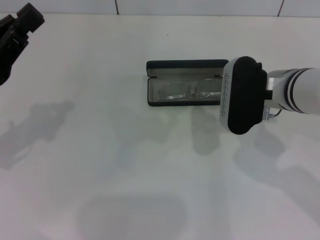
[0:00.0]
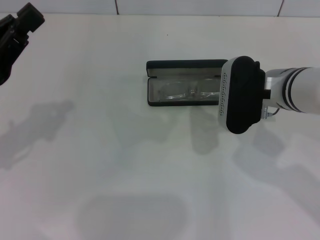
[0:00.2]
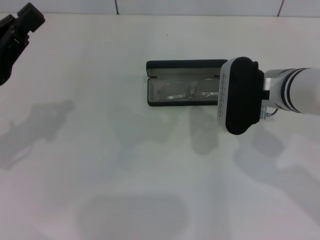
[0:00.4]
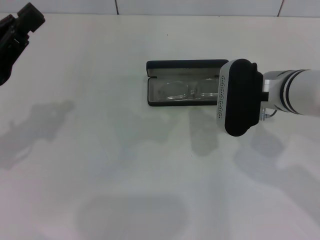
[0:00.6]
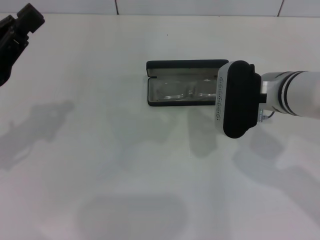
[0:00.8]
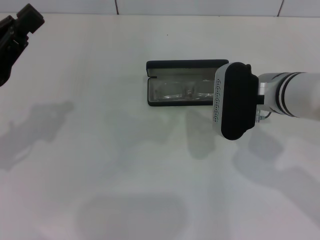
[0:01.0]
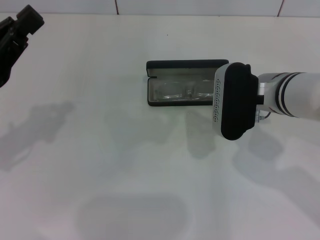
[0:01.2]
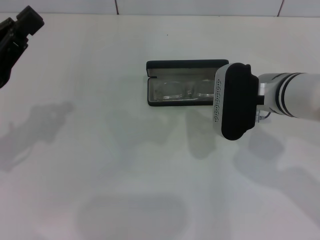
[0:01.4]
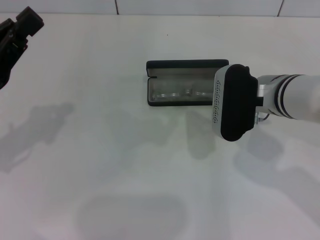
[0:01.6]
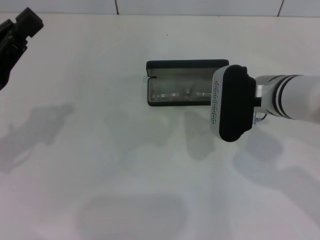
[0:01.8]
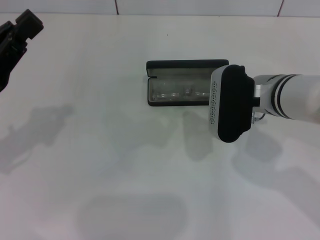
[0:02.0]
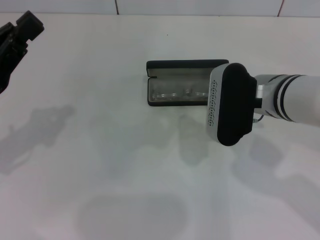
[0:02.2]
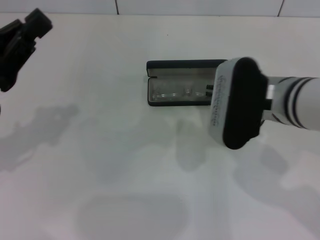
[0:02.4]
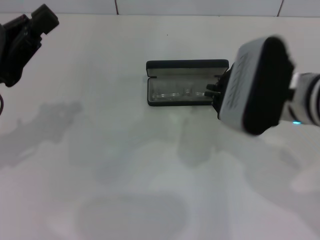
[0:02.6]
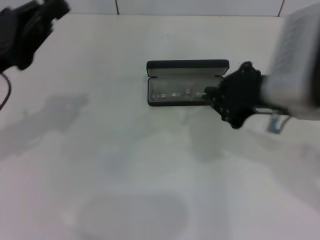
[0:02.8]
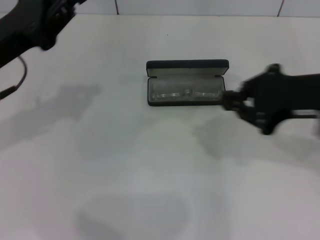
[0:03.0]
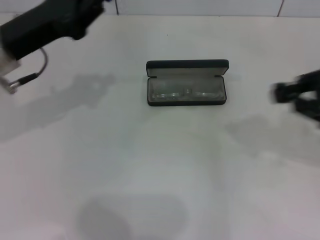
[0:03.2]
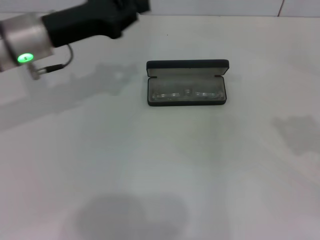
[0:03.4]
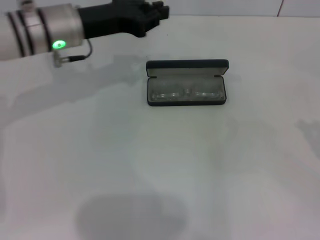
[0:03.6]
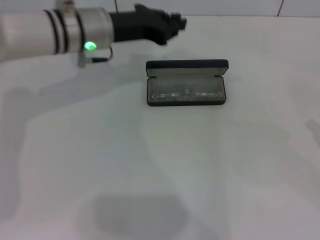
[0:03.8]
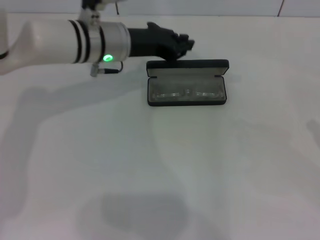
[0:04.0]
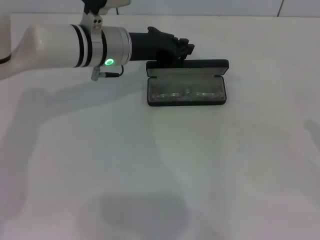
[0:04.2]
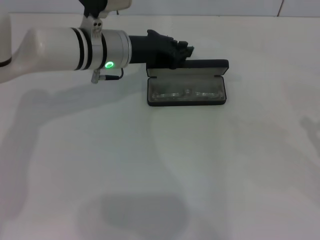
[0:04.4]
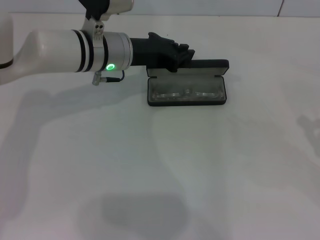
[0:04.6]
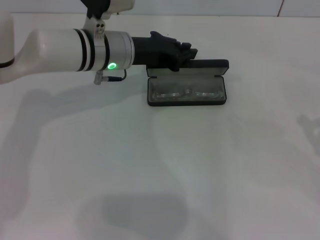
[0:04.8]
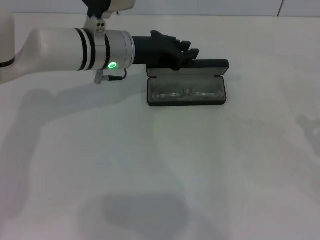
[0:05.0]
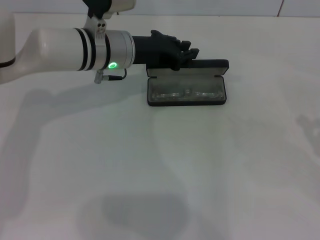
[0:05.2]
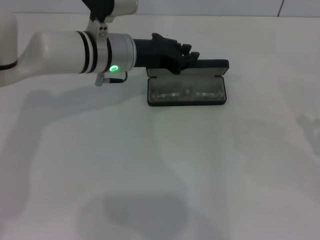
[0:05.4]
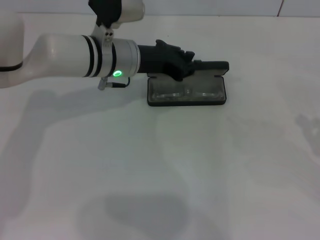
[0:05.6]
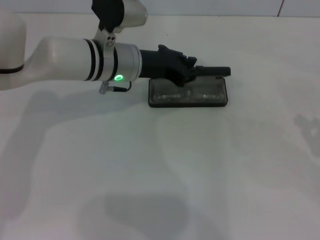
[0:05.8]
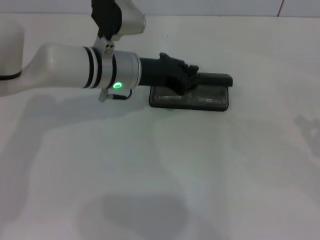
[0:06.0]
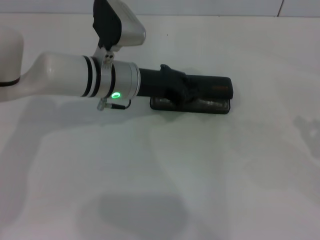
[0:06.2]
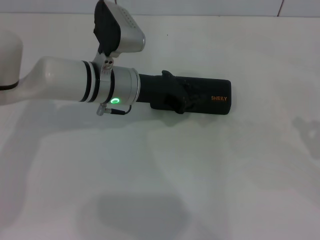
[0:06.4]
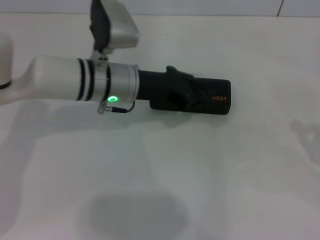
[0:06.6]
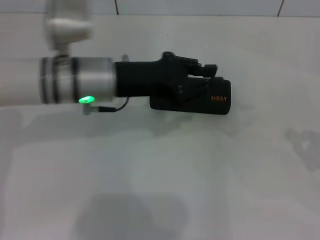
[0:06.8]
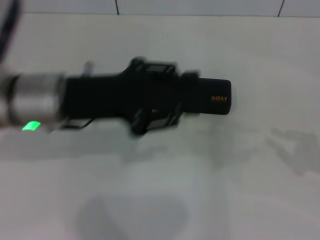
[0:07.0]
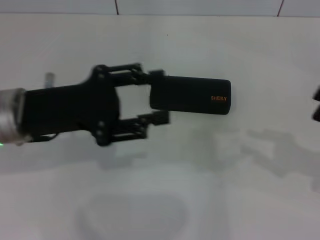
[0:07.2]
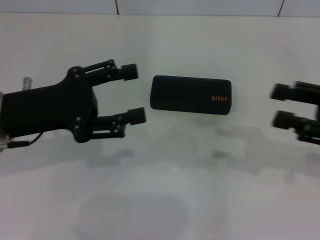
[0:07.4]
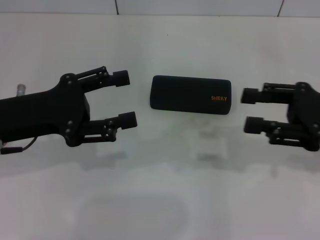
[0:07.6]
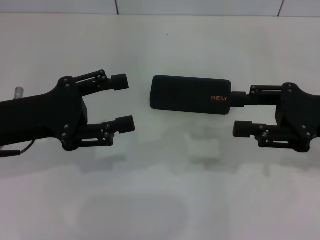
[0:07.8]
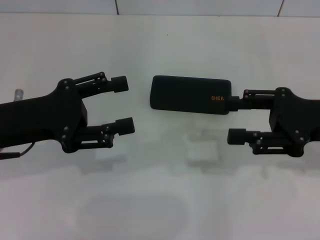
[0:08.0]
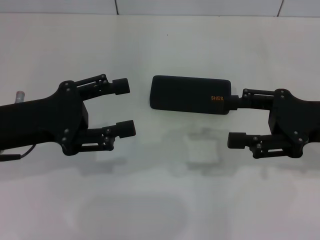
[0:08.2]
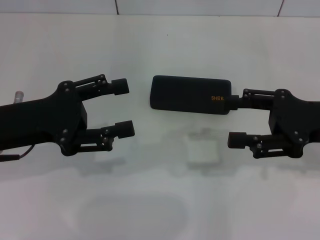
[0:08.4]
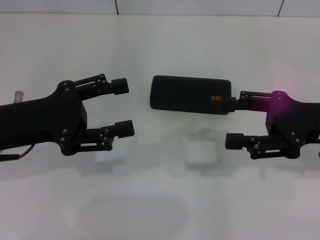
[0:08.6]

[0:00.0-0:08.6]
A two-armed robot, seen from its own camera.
Step, 0:00.0 to 0:06.6: Close the glasses case with your left hand.
0:00.0 to 0:01.4: Neither gripper changes place.
0:01.4 to 0:02.8: The right gripper shifts roughly 10 cm upward and backward.
0:02.8 to 0:04.4: The right gripper moves to the right, some 25 cm. Meanwhile the left gripper is displaced to the right and forward by approximately 20 cm.
0:04.4 to 0:05.8: There are only small adjustments of the grippers.
0:05.8 to 0:07.2: The left gripper moves backward and to the left, approximately 15 cm.
0:07.2 to 0:08.6: The right gripper moves to the left and forward, roughly 10 cm, and opens its fingers; the left gripper opens up.

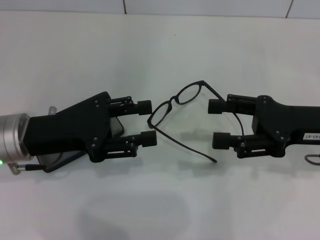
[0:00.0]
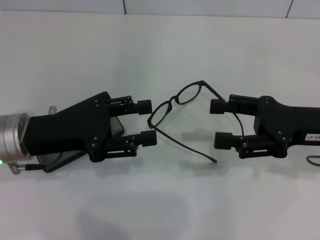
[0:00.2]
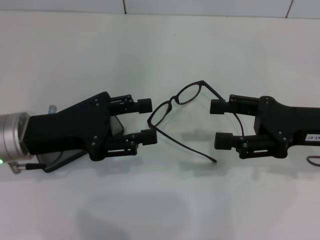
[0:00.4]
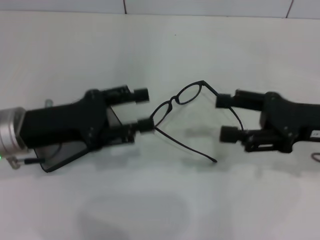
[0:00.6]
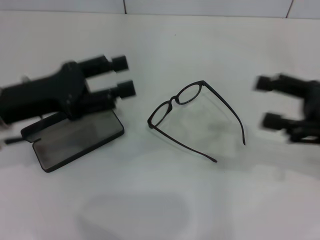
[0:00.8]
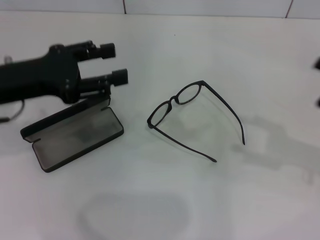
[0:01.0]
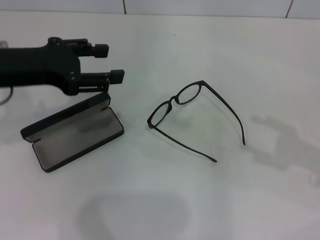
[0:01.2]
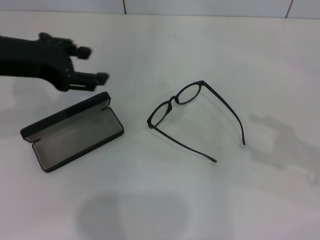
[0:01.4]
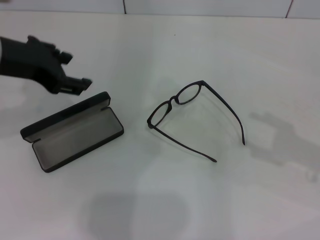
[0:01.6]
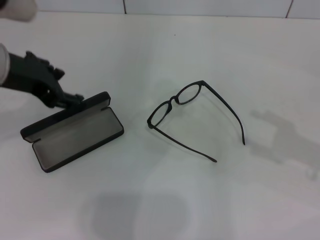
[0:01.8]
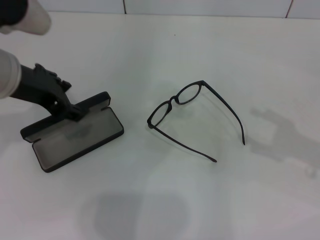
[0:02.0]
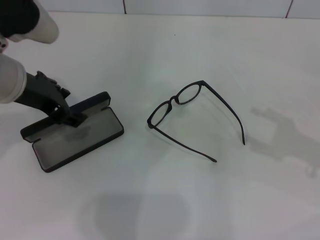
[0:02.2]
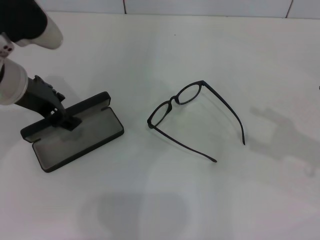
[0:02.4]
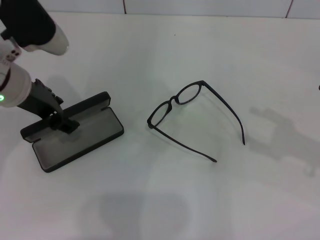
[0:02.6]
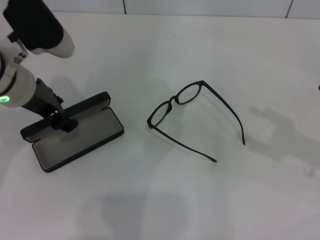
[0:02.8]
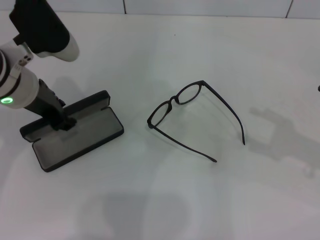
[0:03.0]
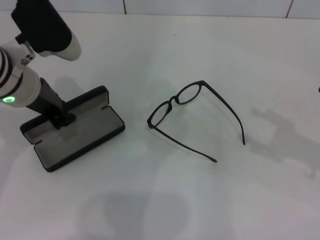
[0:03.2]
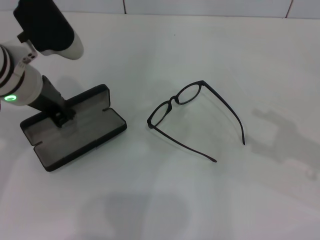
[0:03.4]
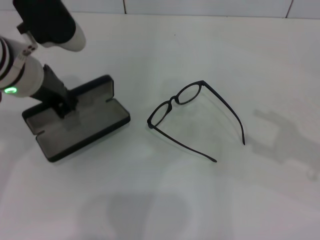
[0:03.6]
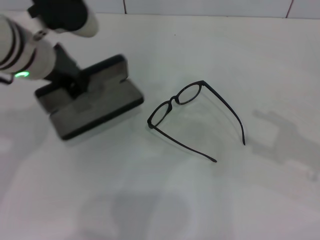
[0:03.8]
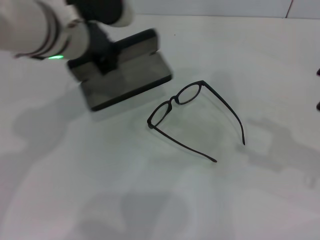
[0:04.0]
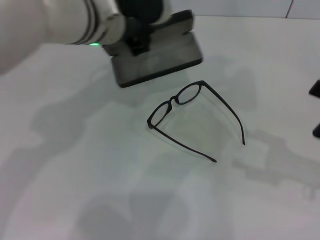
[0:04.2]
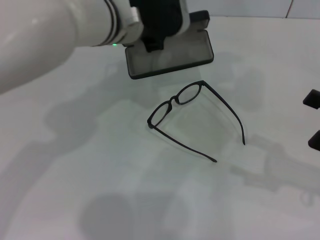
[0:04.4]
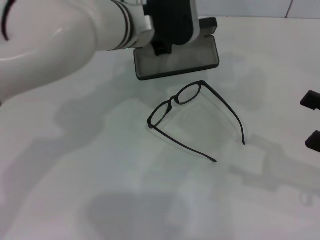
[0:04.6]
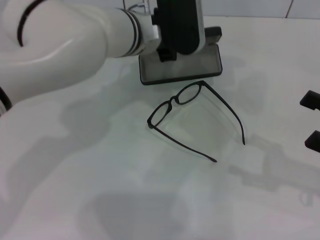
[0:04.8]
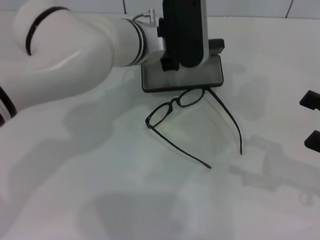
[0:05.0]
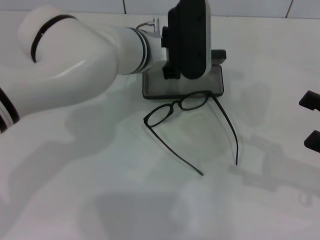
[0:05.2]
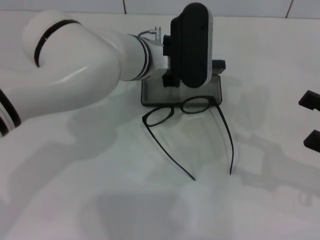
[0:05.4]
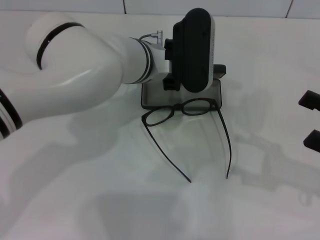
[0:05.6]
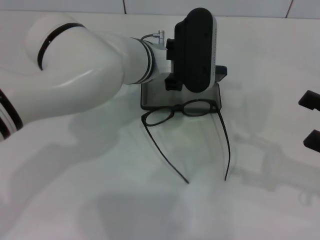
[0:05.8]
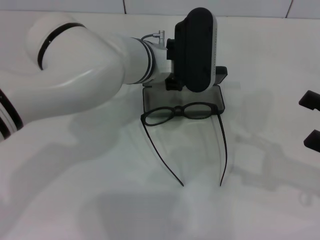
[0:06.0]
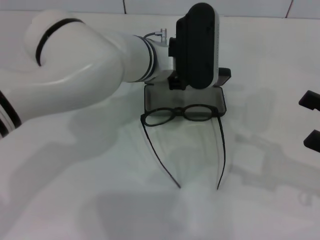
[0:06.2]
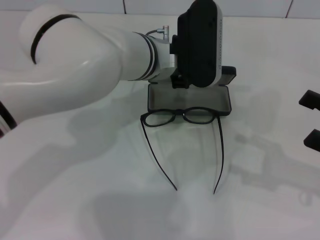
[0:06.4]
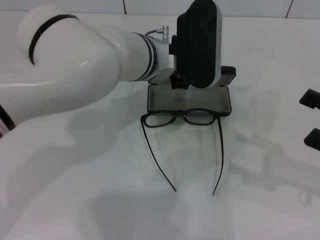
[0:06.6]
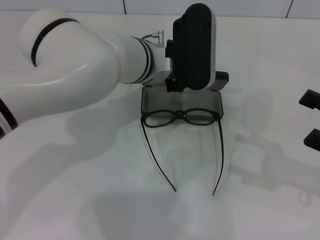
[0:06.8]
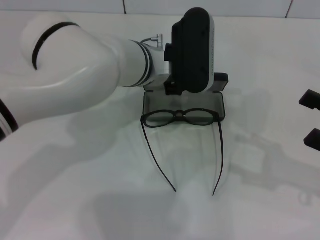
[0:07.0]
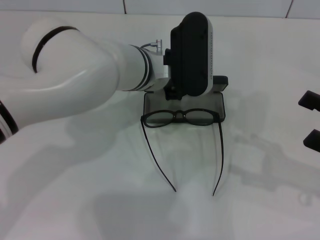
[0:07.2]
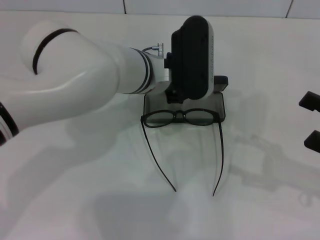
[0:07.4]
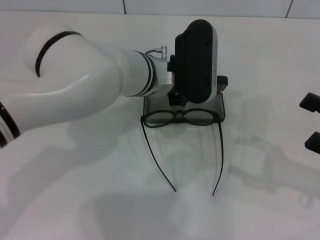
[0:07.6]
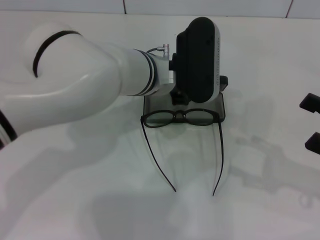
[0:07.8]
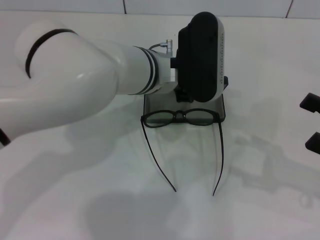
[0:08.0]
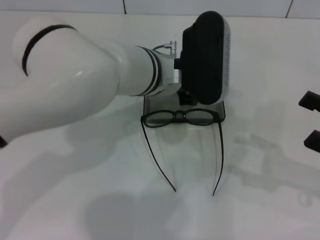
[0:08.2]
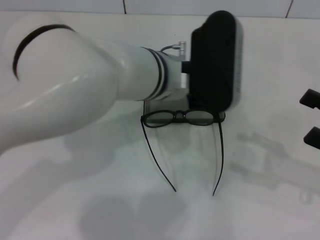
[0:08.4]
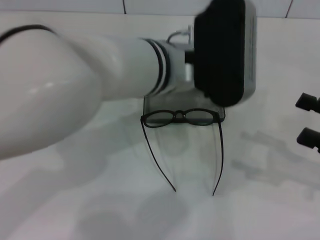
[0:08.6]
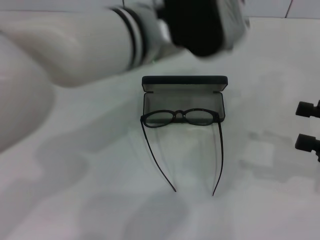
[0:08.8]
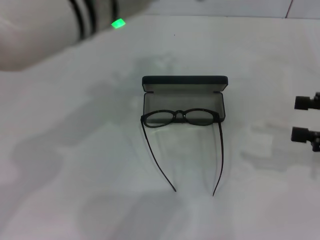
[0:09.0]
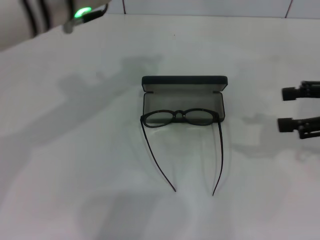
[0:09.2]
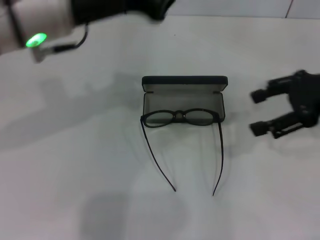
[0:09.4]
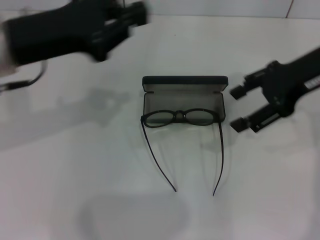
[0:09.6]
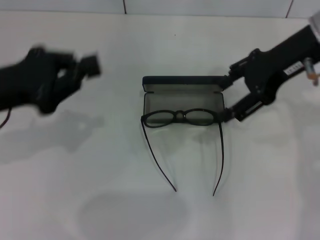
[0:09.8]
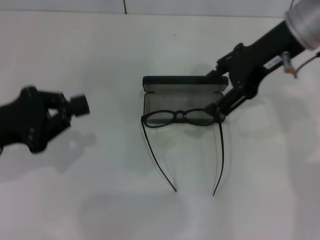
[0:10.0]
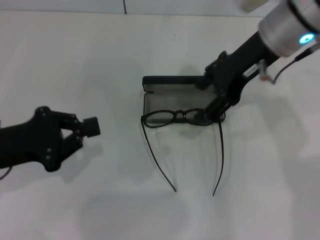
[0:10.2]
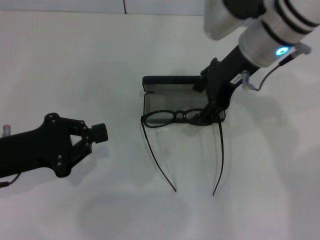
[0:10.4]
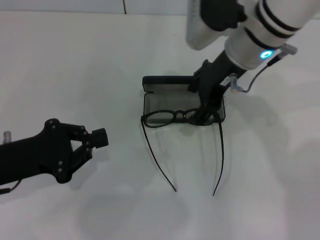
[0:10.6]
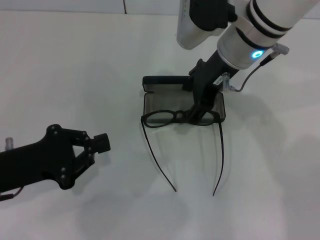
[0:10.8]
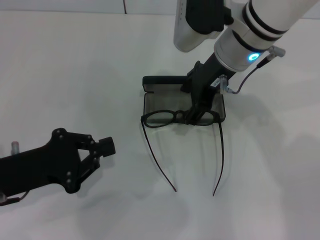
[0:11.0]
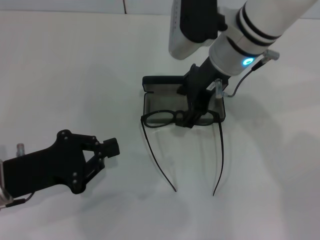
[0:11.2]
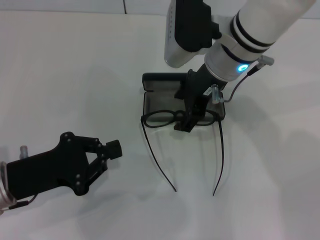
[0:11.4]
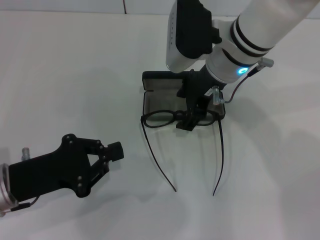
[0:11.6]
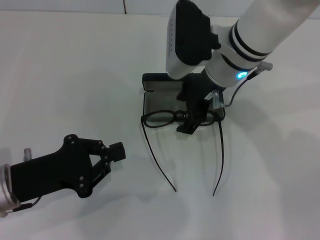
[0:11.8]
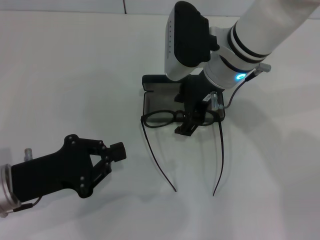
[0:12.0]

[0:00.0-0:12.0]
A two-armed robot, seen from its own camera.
Step, 0:00.0 to 0:03.2: Grab the glasses case with your left hand.
Step, 0:03.4 to 0:07.6: Place the glasses case in the center of the table with your left hand.
0:00.0 to 0:01.6: The left gripper moves upward, approximately 15 cm. The right gripper moves to the right and backward, roughly 10 cm.
0:01.6 to 0:03.0: The left gripper is displaced downward by about 5 cm.
0:03.0 to 0:04.4: The left gripper is displaced to the right and forward by some 15 cm, and closes its fingers.
0:04.4 to 0:06.0: The left gripper is displaced downward by approximately 5 cm.
0:06.0 to 0:07.6: The grippers move only a little.
0:07.6 to 0:09.0: The left gripper heads upward, covering about 15 cm. The right gripper shifts by about 5 cm.
0:09.0 to 0:10.4: The right gripper travels to the left and forward by some 25 cm; the left gripper shifts approximately 25 cm to the left and downward.
0:10.4 to 0:12.0: The right gripper changes place by roughly 5 cm.

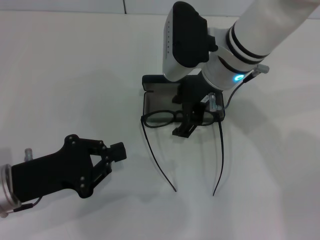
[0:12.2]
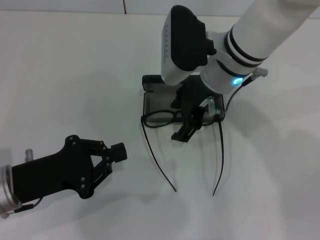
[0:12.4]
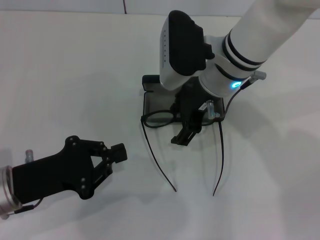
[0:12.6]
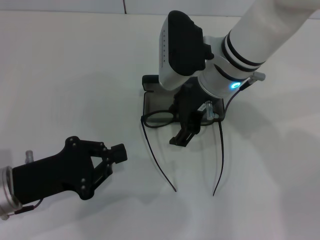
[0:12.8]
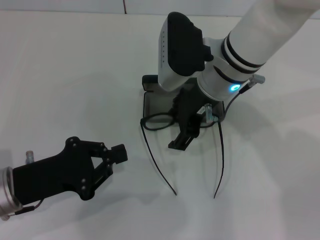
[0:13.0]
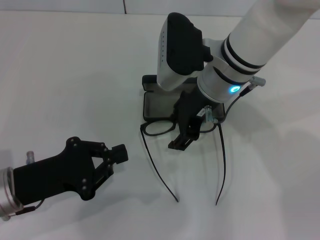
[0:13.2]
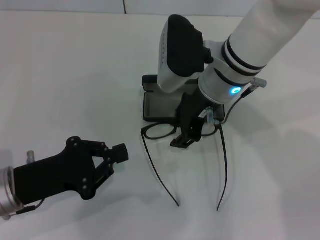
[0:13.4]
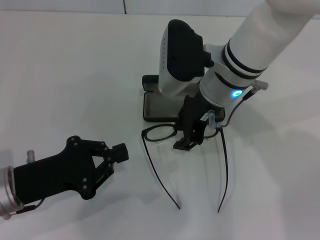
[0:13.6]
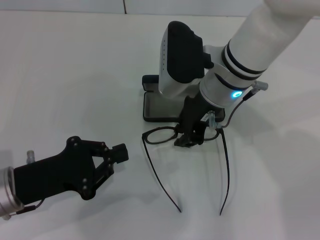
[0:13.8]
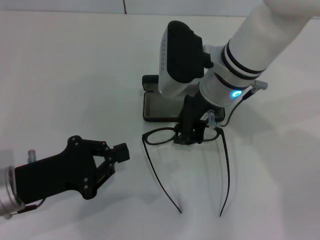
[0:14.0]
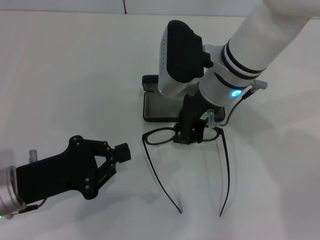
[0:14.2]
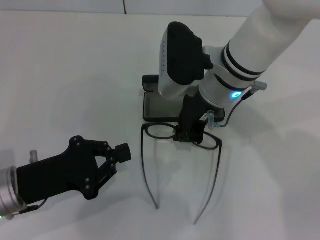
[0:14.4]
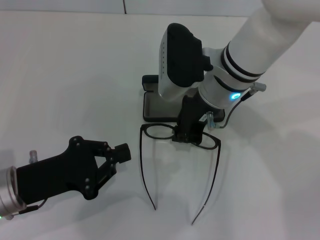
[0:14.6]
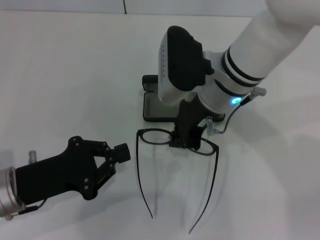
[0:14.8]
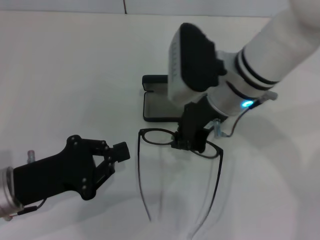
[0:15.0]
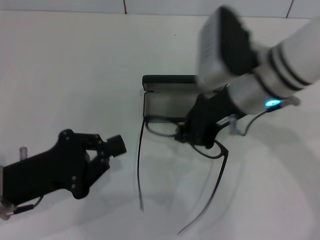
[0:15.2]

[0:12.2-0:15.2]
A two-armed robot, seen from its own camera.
Step, 0:12.2 to 0:14.4: Grab the eyeglass frame with your right hand.
0:12.2 to 0:13.8: The right gripper closes up.
0:13.8 to 0:15.2: The right gripper shifts by approximately 5 cm, and closes up.
